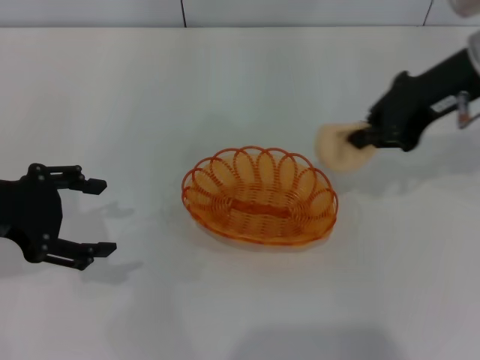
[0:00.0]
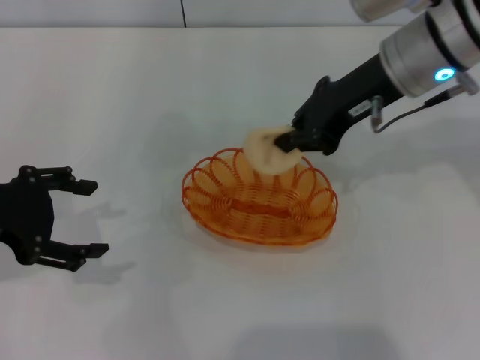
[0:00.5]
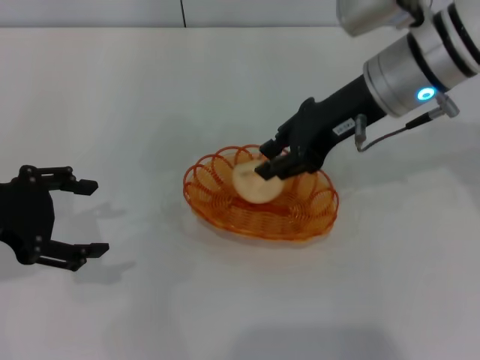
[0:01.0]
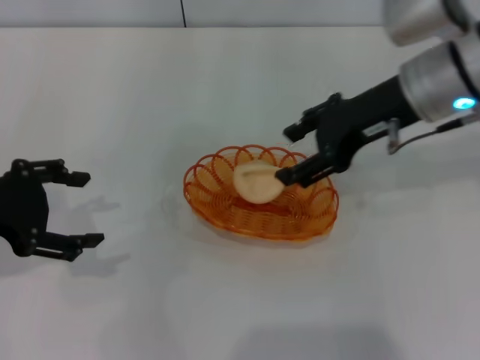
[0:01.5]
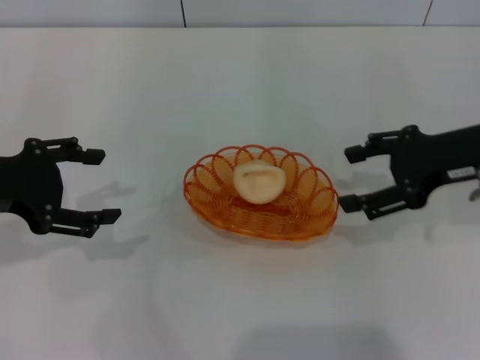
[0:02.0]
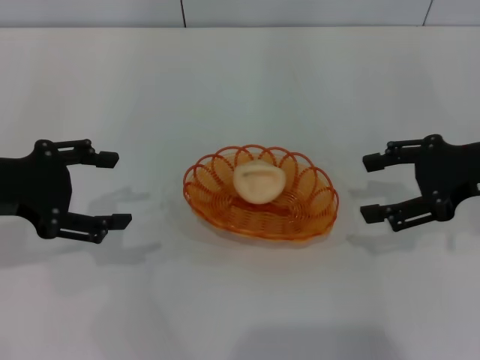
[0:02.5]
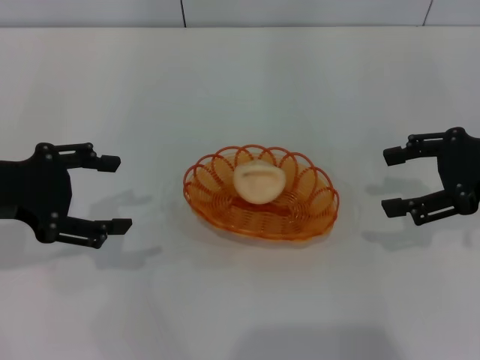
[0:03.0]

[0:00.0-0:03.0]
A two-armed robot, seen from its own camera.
Step, 0:00.0 to 0:01.5: Place the egg yolk pastry into the basket with the right gripper.
0:00.0 to 0:01.5: The right gripper opens its fingers.
0:01.5 to 0:03.0: The right gripper moves to the right, roughly 15 cm, and opens its fingers.
